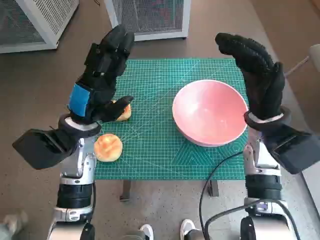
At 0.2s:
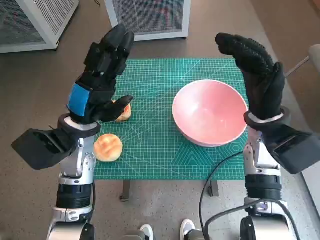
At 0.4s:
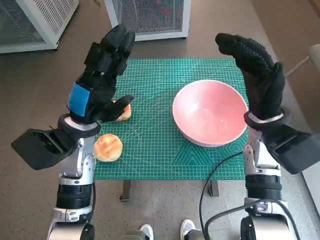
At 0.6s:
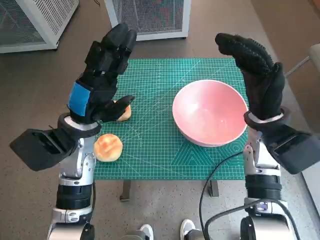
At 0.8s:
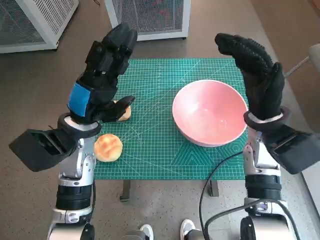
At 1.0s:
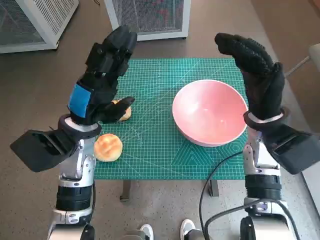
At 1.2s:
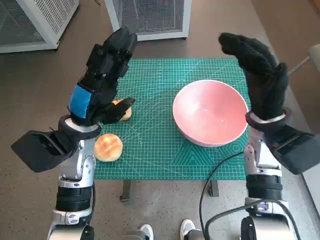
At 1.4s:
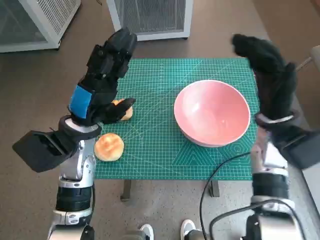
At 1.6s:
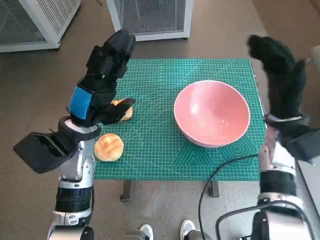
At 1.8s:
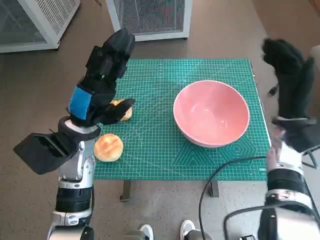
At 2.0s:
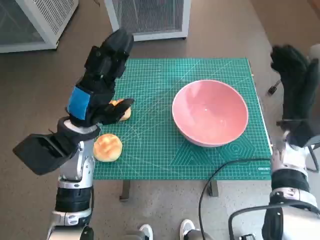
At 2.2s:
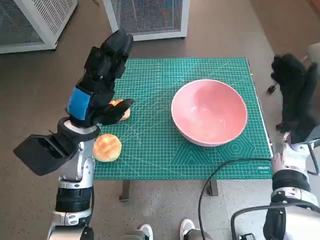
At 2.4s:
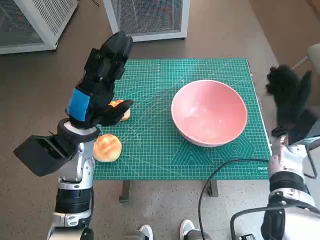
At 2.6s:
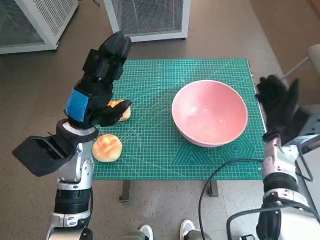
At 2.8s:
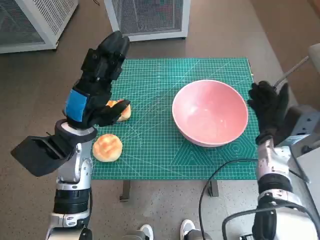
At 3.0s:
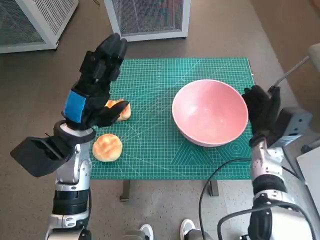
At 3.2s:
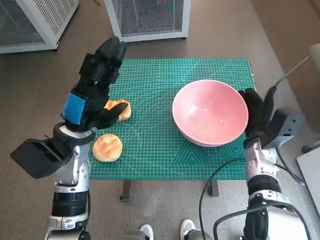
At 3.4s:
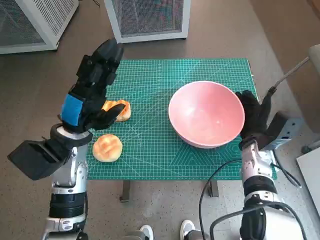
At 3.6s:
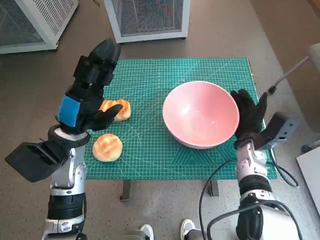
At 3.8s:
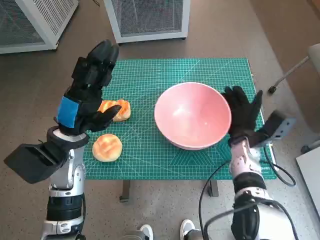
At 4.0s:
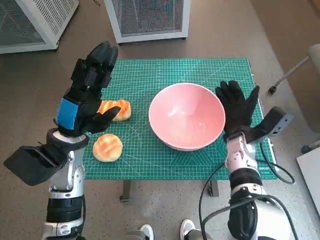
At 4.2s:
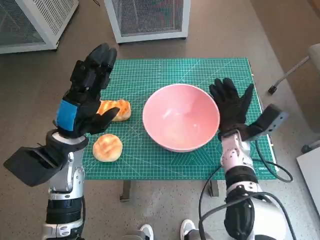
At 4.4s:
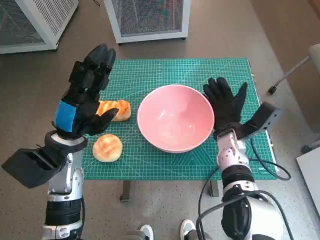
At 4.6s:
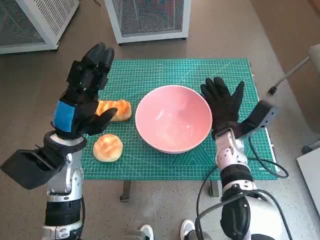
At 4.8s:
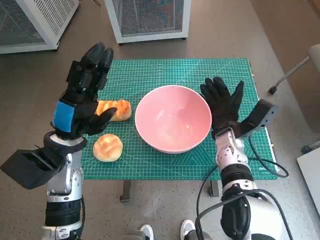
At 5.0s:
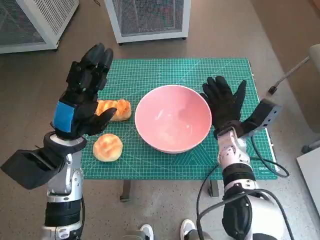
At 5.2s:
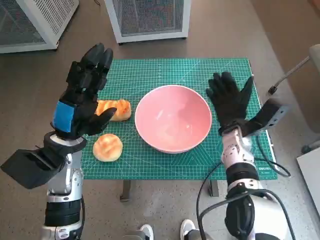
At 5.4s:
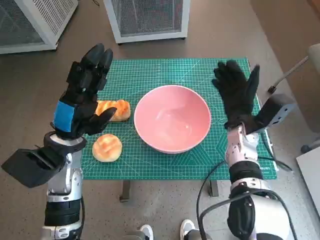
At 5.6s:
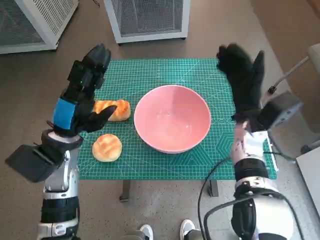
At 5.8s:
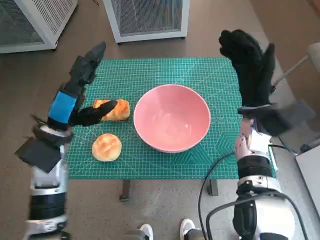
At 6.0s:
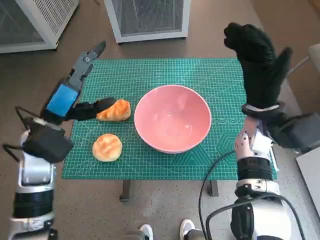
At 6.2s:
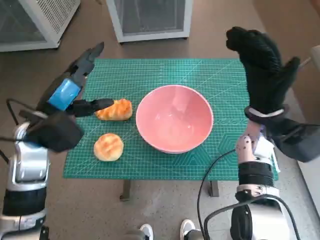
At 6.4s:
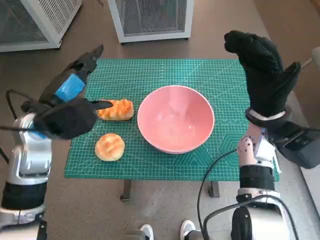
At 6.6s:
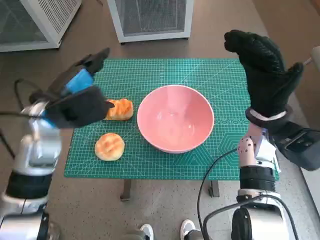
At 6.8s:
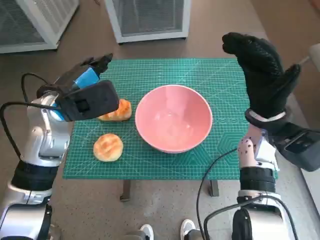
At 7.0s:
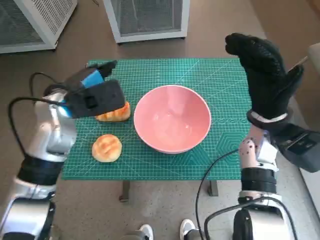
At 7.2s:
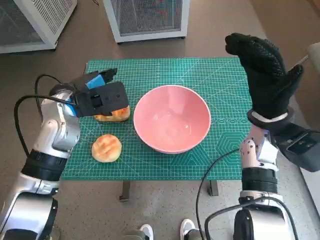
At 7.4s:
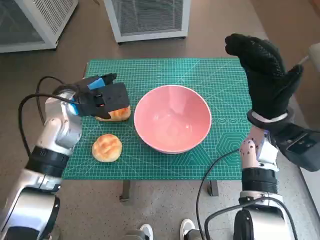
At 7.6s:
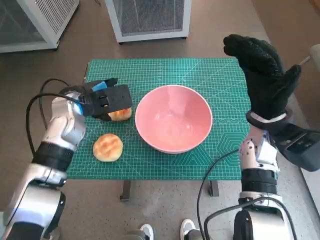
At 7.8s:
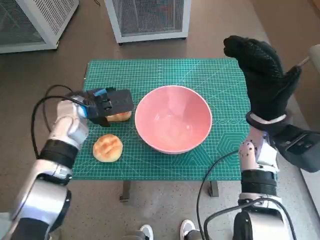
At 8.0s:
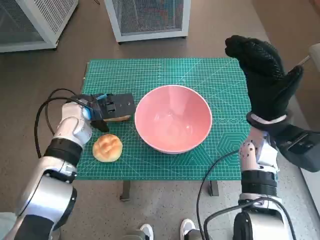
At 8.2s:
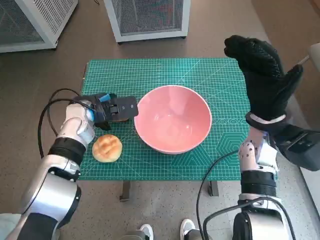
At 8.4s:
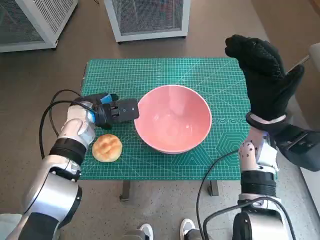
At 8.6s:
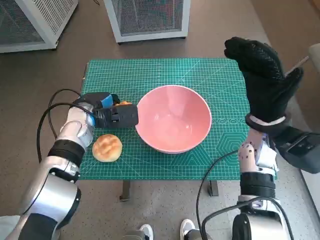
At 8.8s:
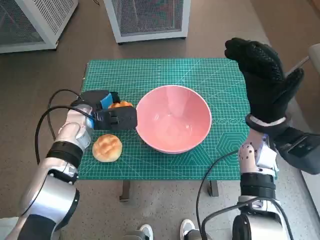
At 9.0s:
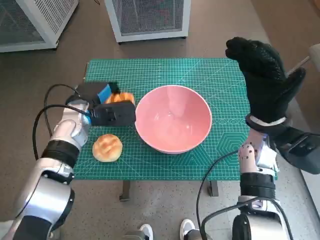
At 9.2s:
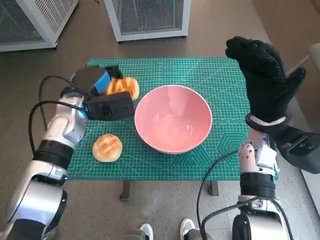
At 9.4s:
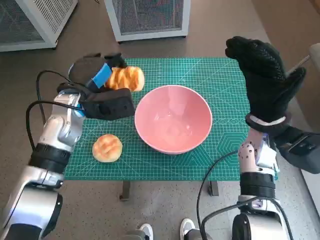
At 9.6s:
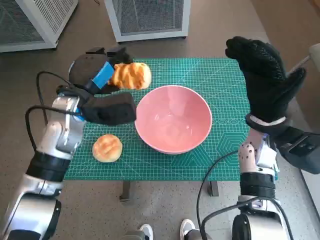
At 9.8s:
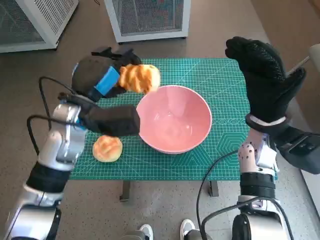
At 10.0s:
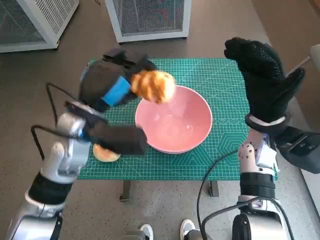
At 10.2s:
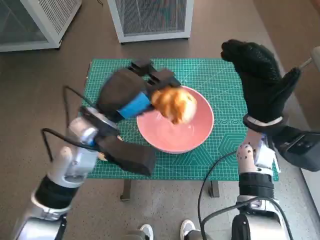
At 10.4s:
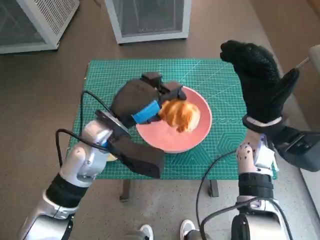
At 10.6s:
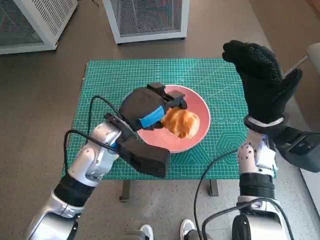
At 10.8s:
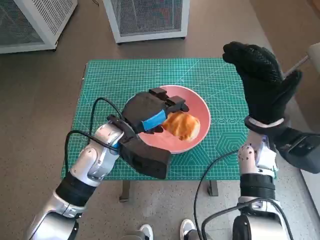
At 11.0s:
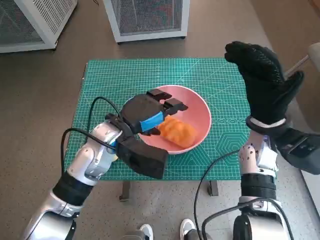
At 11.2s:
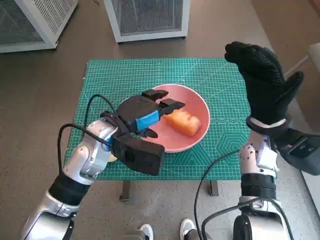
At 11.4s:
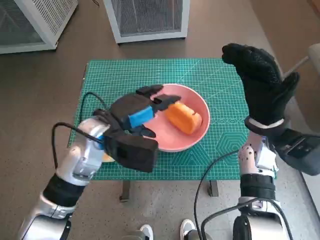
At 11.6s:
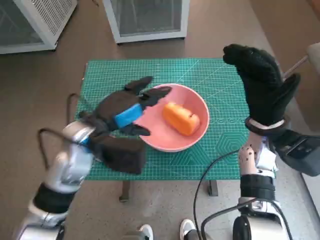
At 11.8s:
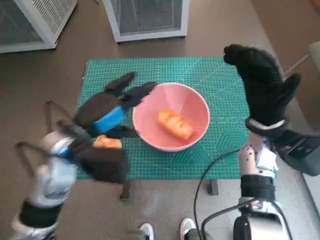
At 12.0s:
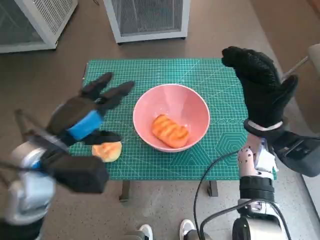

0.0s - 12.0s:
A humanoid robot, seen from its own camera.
Task of the whole recording: Push the bowl into the center of the table and put the bread into the bowl.
Step, 0.0s - 5.2s: Move the pink bowl to the center of table with right hand.
Step, 5.4s - 8.4s: Grasp the long bread with left hand.
Step, 8.8s - 10.8s: Place the long bread in pink bowl with left hand.
1.6s - 3.0s: The right hand travels downward by about 10 cm.
3.0s - 4.4s: The right hand moves to the left, some 10 cm.
4.4s - 6.0s: The right hand travels upward by approximately 10 cm.
6.0s - 7.6s: The left hand is displaced forward by approximately 10 cm.
7.6s - 9.0s: There are only small adjustments of the hands.
9.0s - 10.4s: The left hand is displaced to the right, backward and upward by roughly 10 cm.
10.4s - 12.0s: The left hand shifts some 5 cm to the left.

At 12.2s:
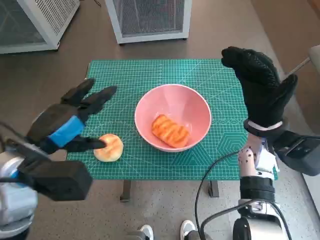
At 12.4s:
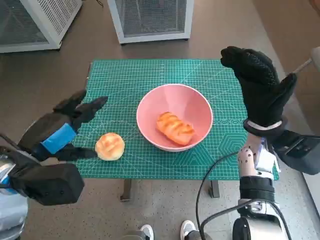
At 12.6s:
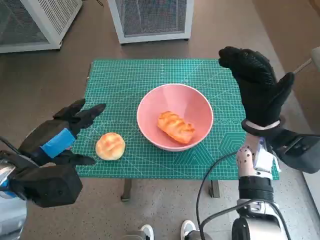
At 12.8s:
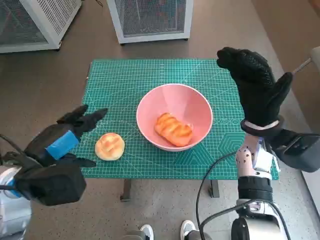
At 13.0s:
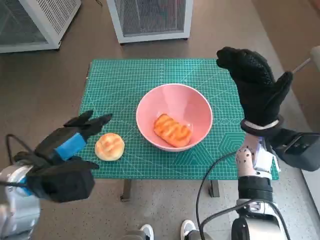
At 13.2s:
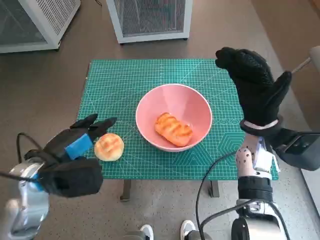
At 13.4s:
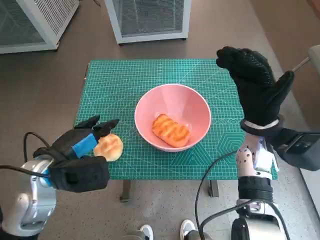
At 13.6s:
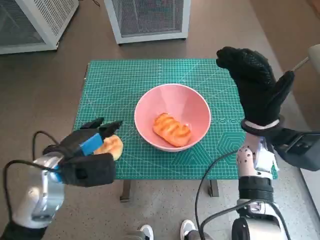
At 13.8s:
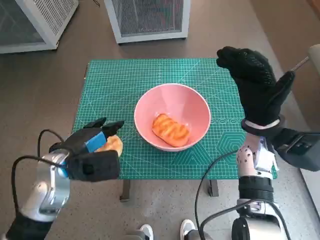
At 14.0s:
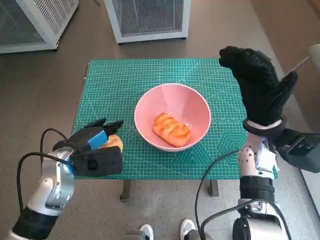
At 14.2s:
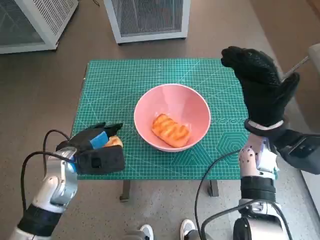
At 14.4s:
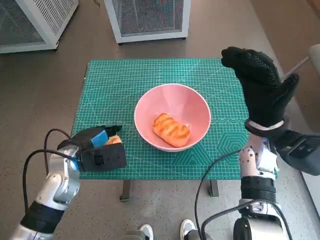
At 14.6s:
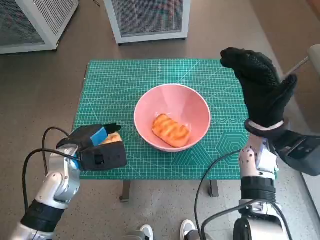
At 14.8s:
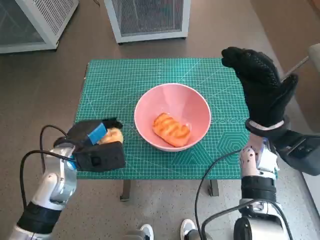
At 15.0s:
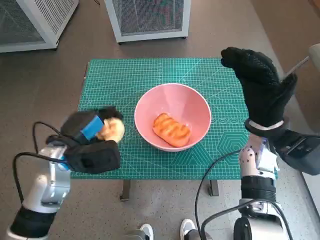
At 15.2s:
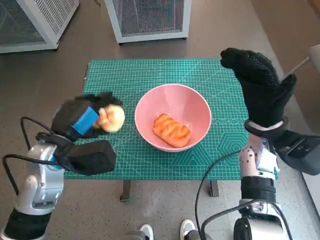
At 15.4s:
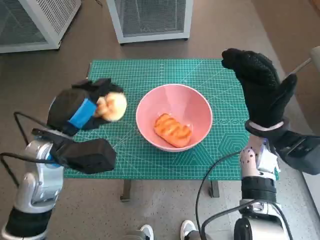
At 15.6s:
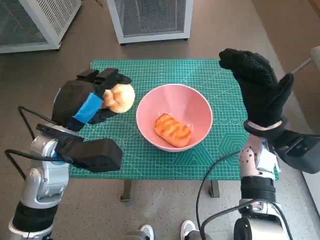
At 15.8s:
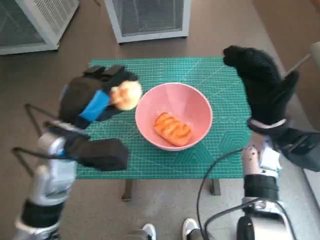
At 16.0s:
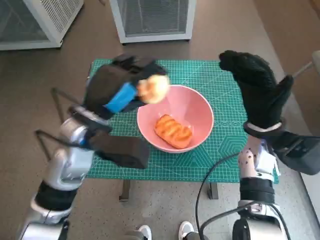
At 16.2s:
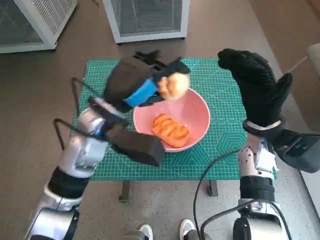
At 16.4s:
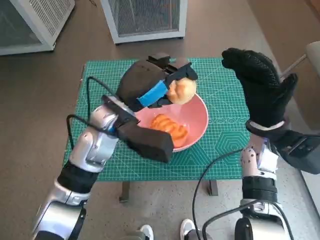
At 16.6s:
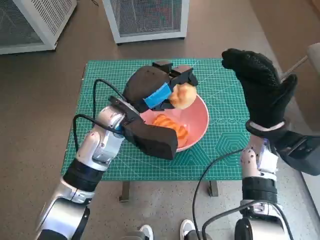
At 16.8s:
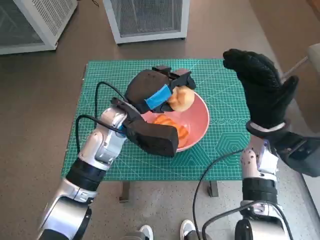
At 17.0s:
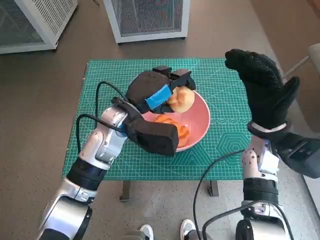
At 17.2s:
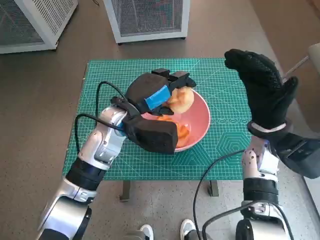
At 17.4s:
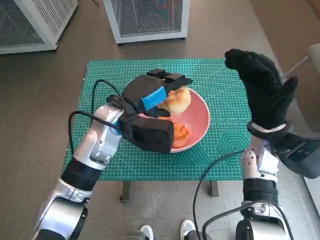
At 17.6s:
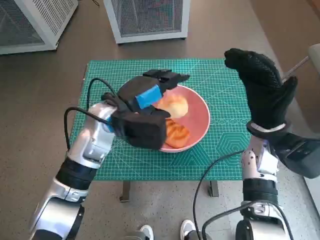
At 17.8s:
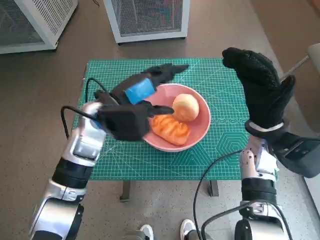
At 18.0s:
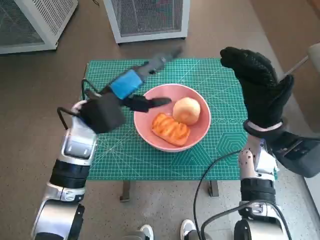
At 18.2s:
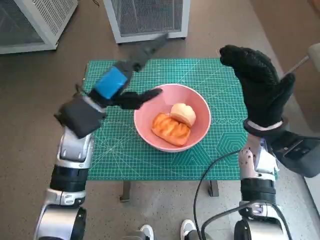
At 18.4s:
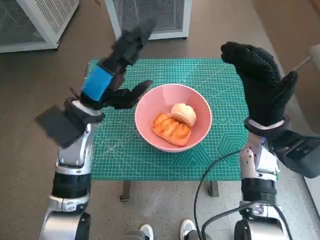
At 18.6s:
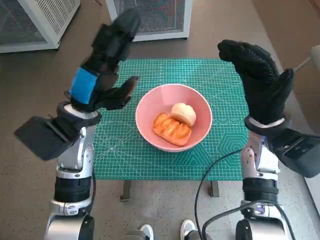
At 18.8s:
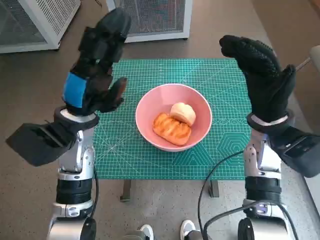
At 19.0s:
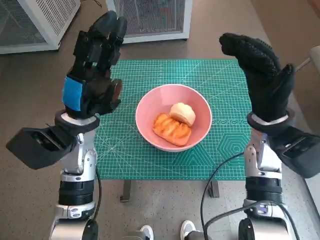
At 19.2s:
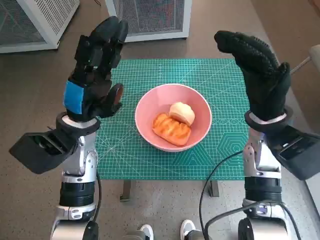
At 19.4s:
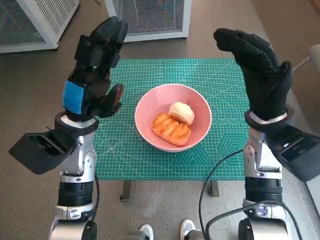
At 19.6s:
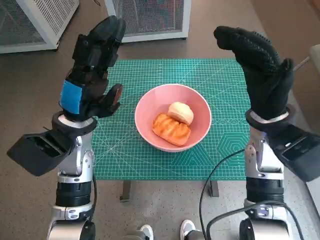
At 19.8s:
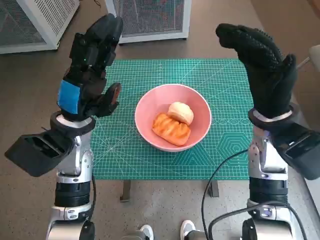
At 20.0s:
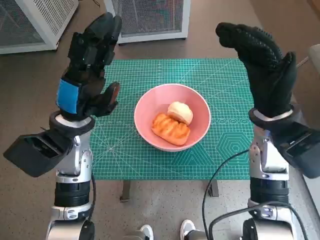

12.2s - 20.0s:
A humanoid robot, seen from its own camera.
Task of the whole recording: Push the bowl into the center of the table and put the bread into the bowl.
Step, 12.2s - 14.4s: Grasp the round bread with left hand.
Step, 14.6s - 17.6s: Place the round bread in pink bowl with left hand.
12.2s - 13.8s: The left hand goes approximately 10 cm downward.
15.4s - 16.8s: The left hand goes about 15 cm to the right and forward.
16.8s - 18.4s: The left hand goes approximately 5 cm to the left.

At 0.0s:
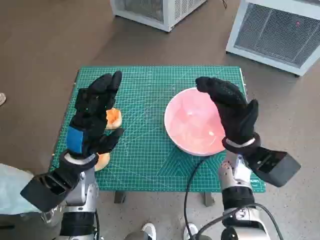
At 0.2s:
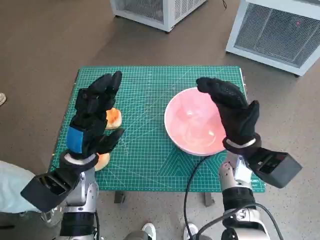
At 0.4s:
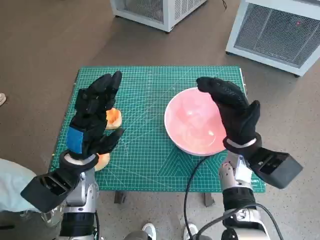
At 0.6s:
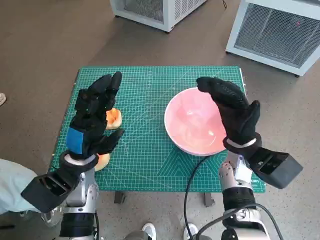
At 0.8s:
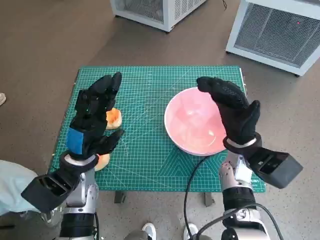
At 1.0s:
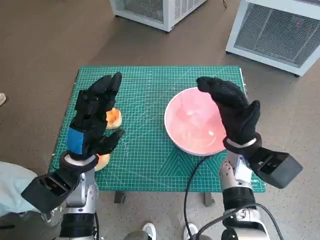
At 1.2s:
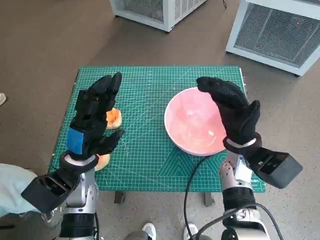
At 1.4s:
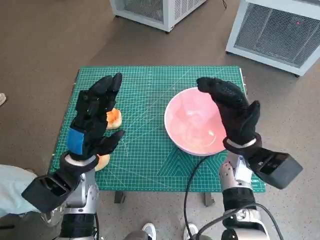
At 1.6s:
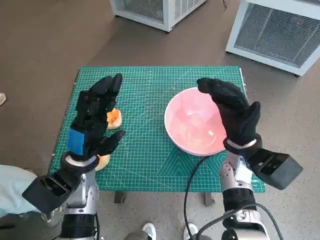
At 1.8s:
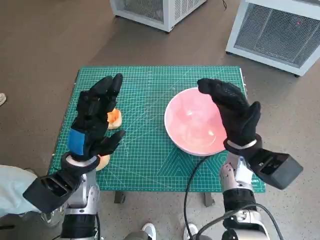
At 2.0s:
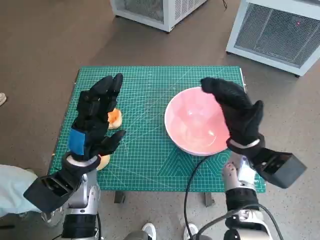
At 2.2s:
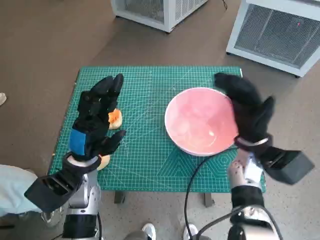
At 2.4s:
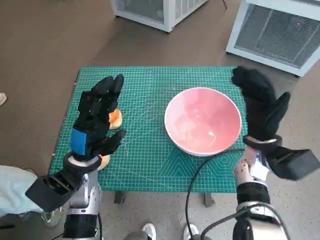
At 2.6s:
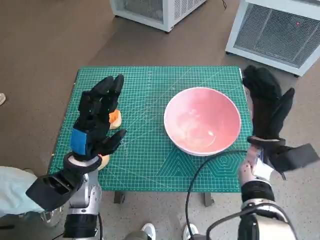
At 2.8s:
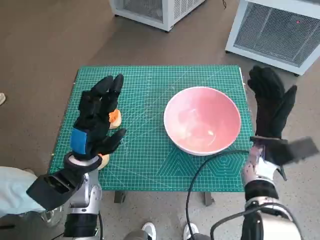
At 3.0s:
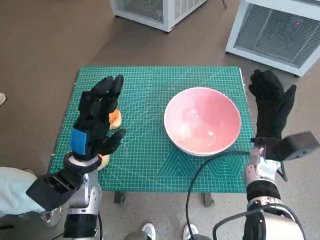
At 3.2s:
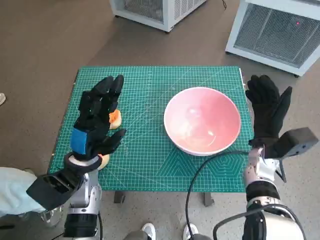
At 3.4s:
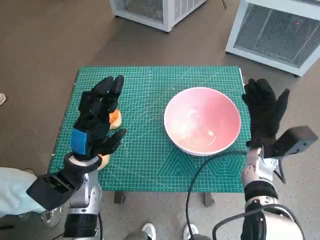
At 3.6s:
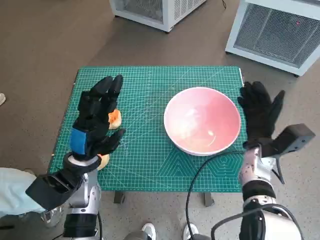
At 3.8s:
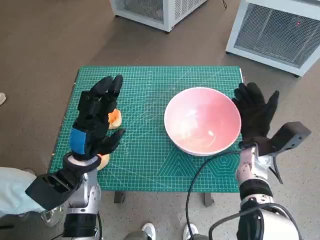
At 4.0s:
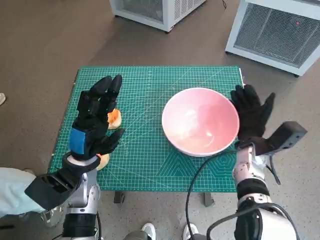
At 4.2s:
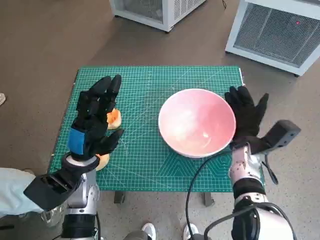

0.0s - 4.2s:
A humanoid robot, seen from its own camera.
Task of the whole recording: Push the bowl into the center of the table and put the bread into the bowl.
1.4s - 2.8s: The right hand travels to the right by some 5 cm.
